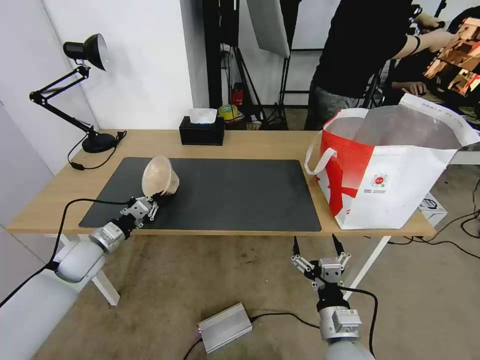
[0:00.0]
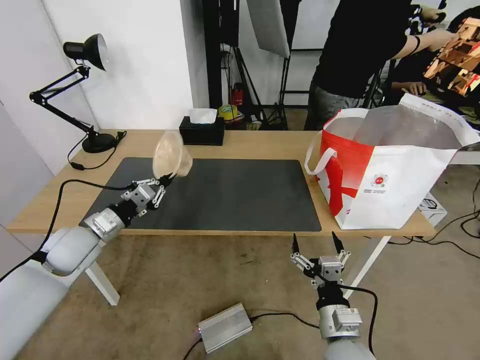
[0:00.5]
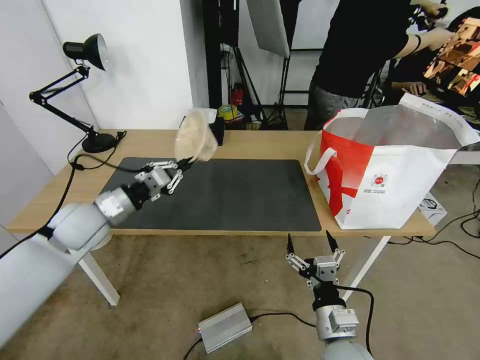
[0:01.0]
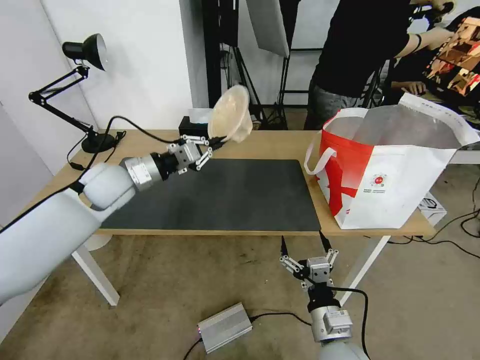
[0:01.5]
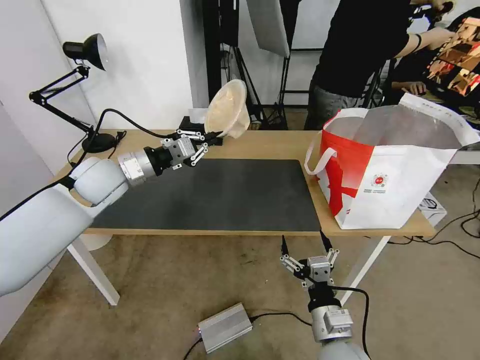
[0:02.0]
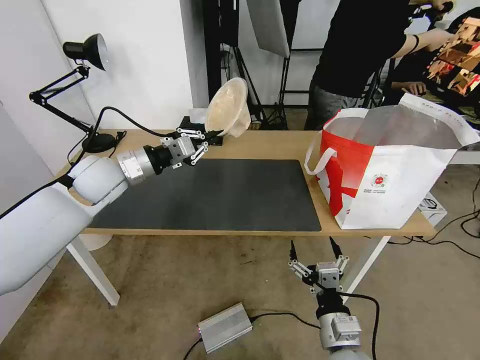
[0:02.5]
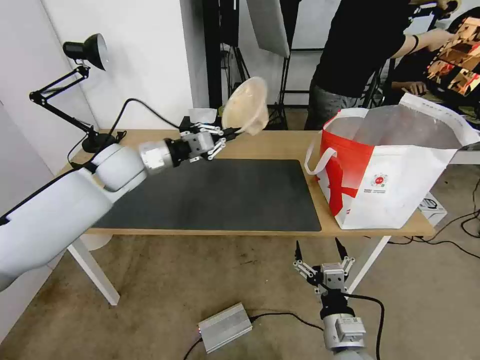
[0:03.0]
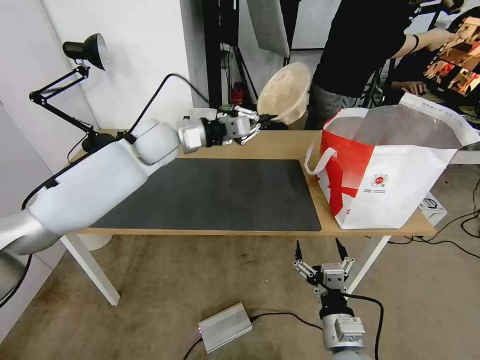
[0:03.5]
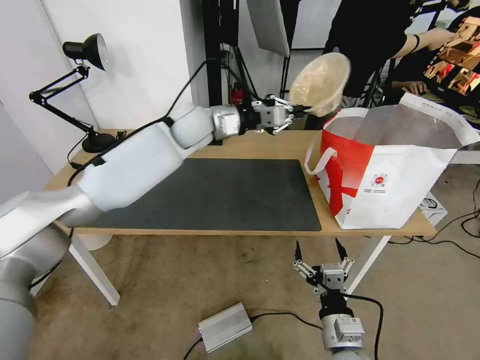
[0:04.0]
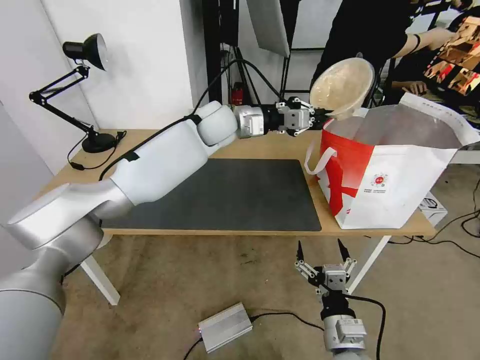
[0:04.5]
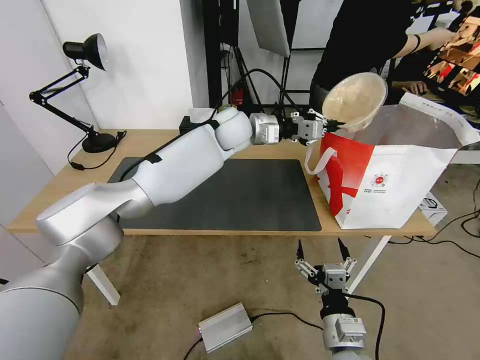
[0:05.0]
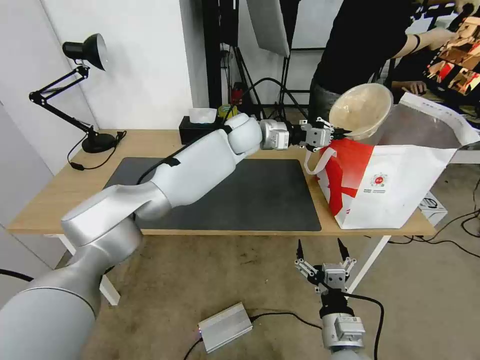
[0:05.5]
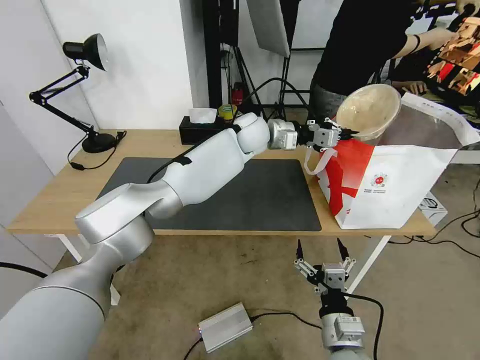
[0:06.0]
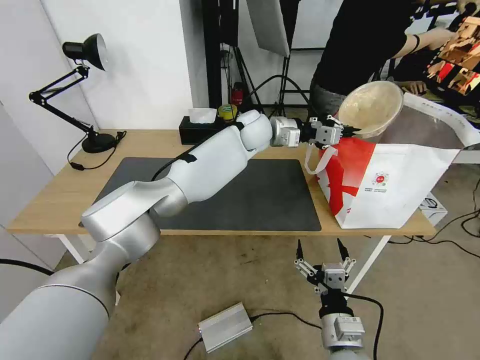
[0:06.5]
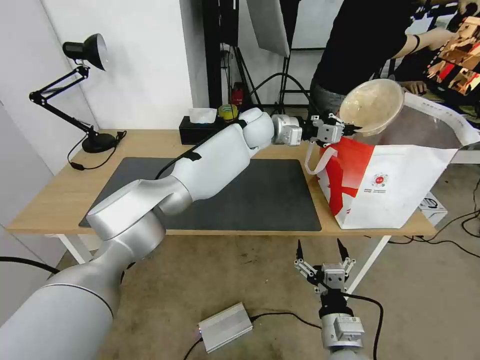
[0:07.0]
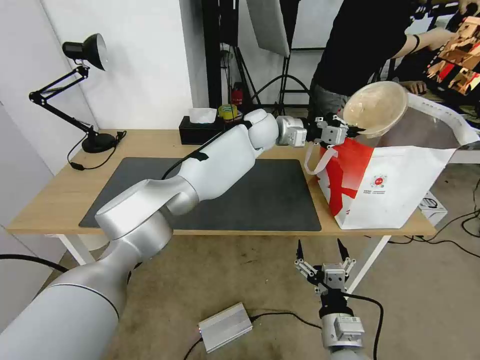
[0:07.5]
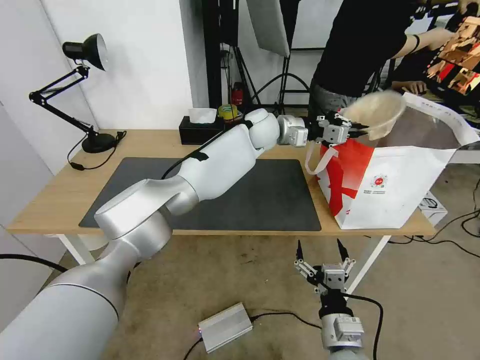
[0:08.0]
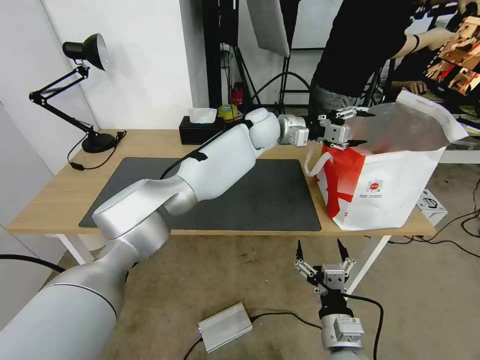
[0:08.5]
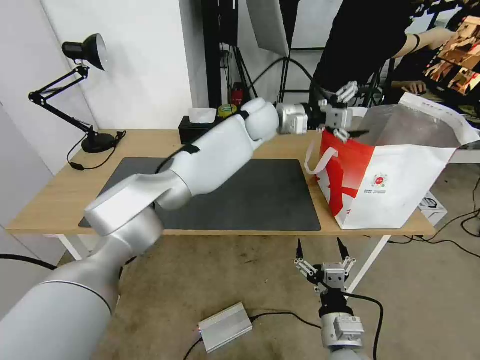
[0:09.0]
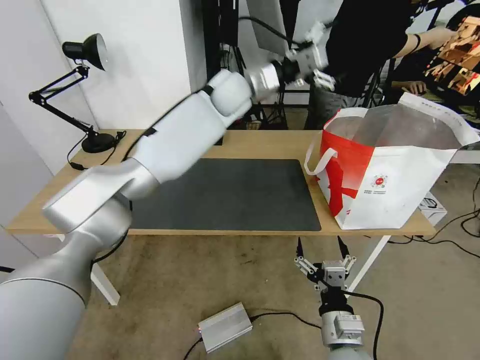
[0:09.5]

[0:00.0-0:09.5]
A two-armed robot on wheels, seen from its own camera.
Task of the whole recording: Pick up the trash from the table and place it into the takeout bag.
0:00.0 to 0:02.0: The left gripper goes approximately 20 cm upward, to the right and forward.
0:02.0 to 0:04.0: The left gripper is displaced to the right and forward by approximately 20 cm.
0:04.0 to 0:05.5: The left gripper travels to the right by about 10 cm.
0:05.5 to 0:07.5: There are only small adjustments of the grippers.
0:07.5 to 0:09.5: The left gripper goes about 10 cm upward and to the left, and opens its fingers.

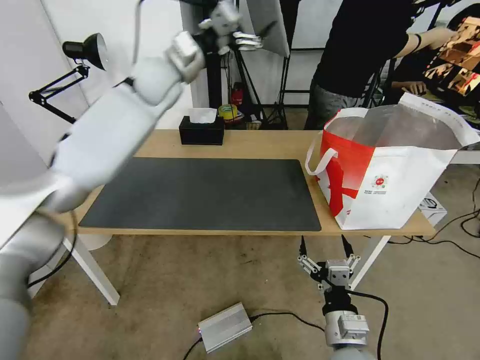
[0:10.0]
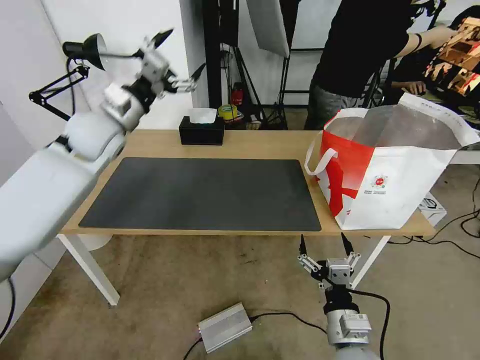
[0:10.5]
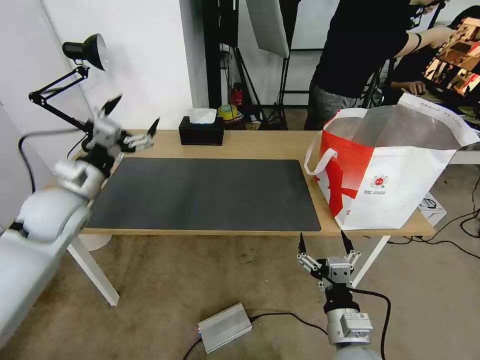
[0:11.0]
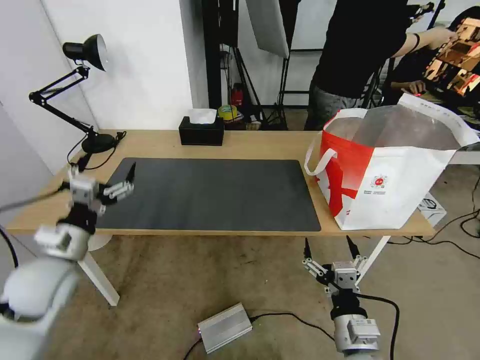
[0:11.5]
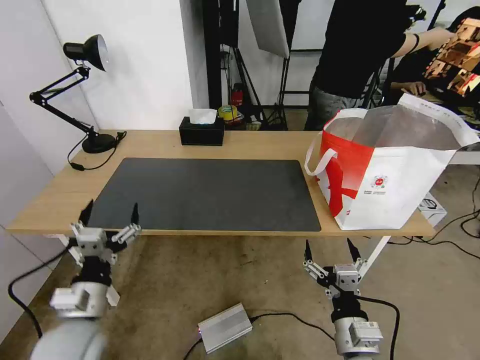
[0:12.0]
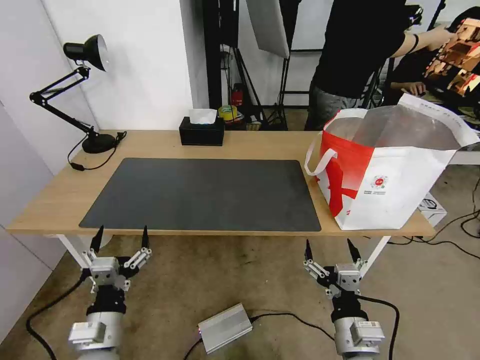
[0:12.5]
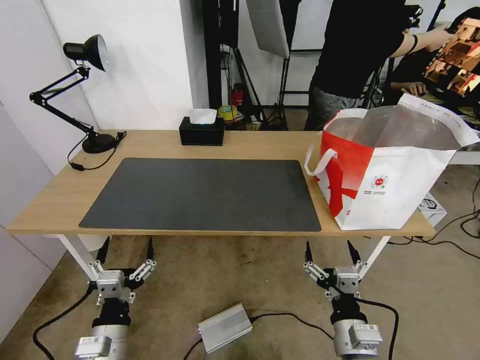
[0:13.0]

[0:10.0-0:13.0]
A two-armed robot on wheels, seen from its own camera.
Task of the whole recording: Pick up the trash from the table and place it into the takeout bag.
0:10.0 to 0:11.5: The left gripper shifts about 40 cm backward, downward and to the left.
0:11.5 to 0:13.0: The left gripper goes approximately 20 cm backward, downward and to the right.

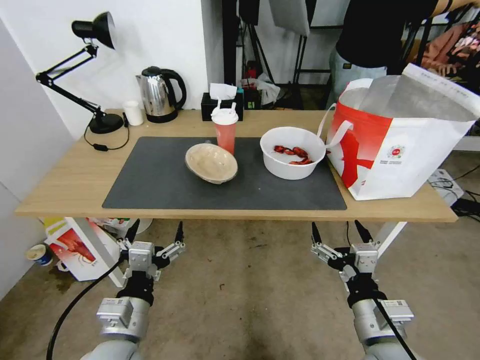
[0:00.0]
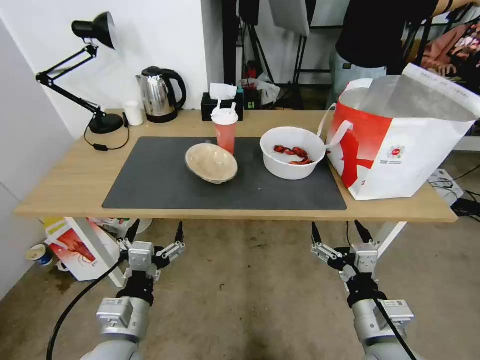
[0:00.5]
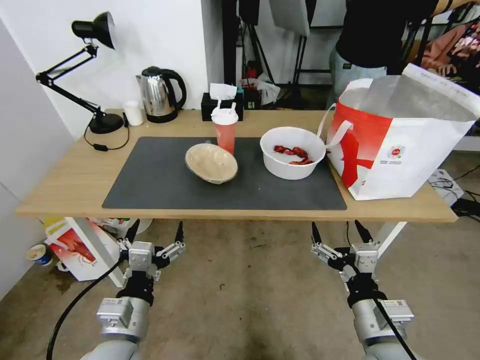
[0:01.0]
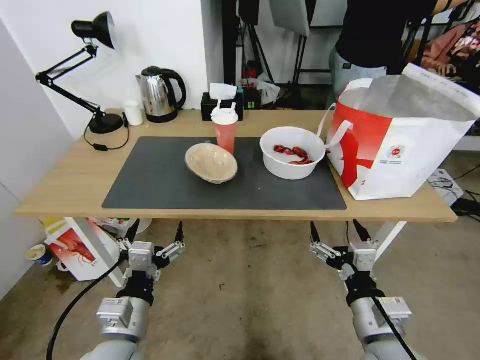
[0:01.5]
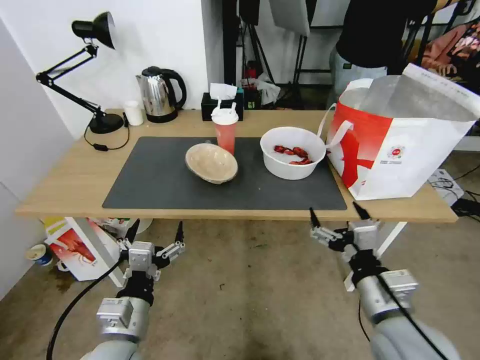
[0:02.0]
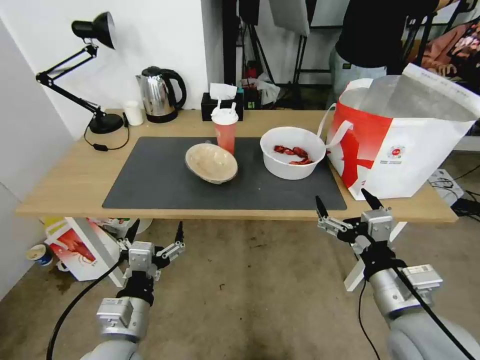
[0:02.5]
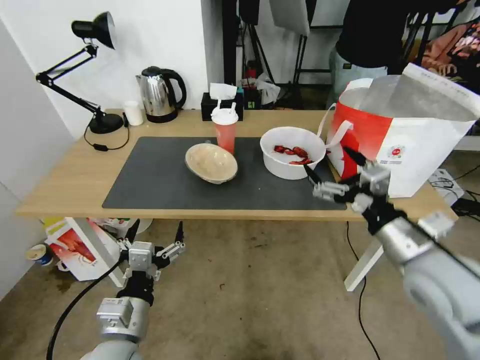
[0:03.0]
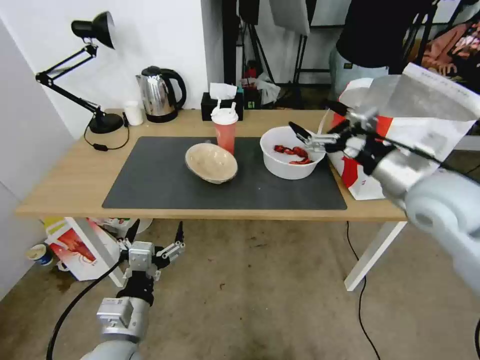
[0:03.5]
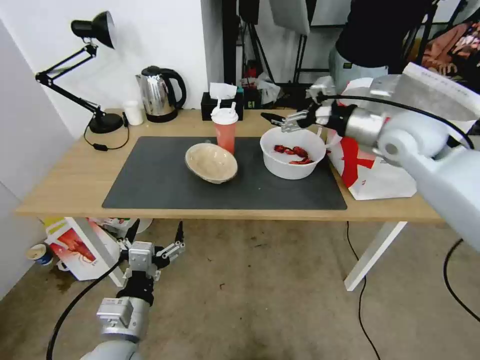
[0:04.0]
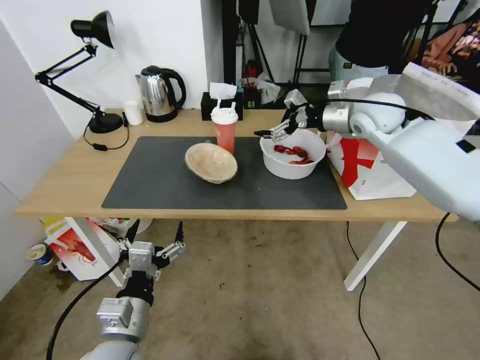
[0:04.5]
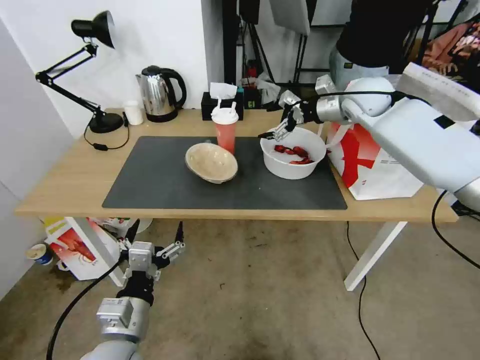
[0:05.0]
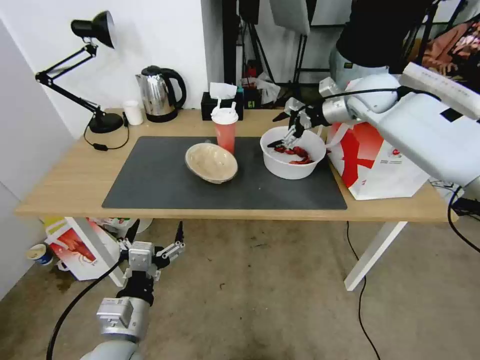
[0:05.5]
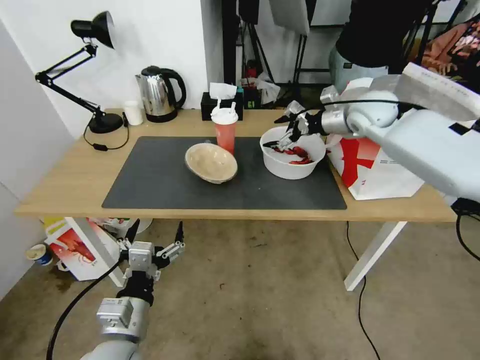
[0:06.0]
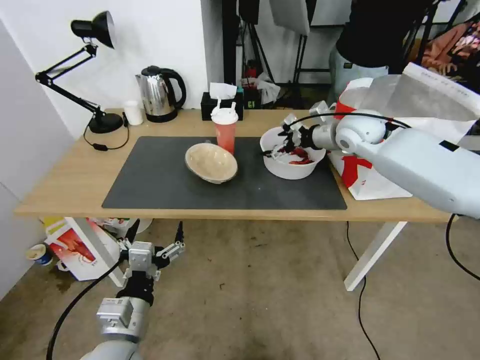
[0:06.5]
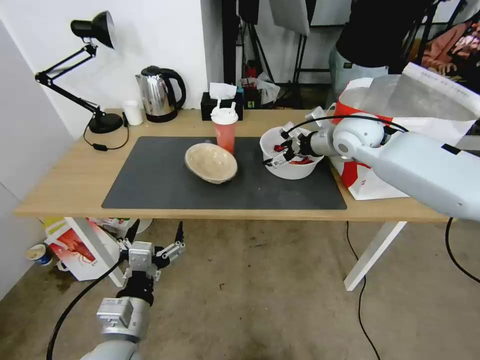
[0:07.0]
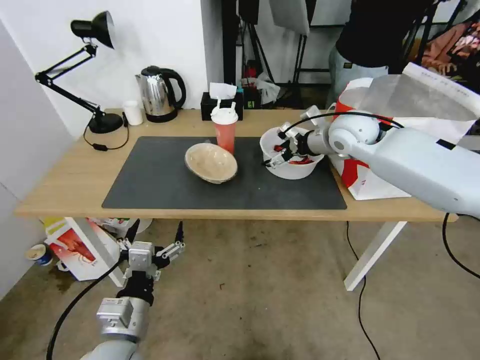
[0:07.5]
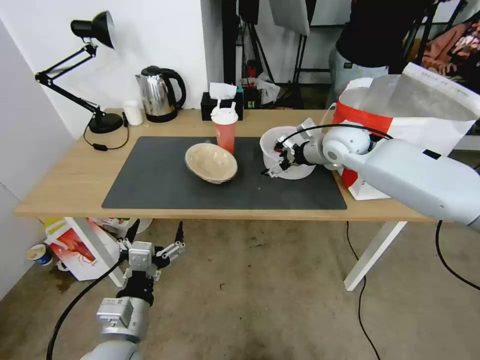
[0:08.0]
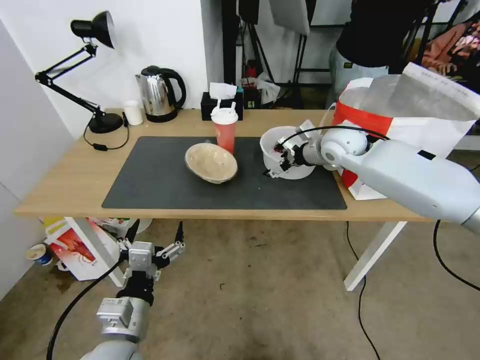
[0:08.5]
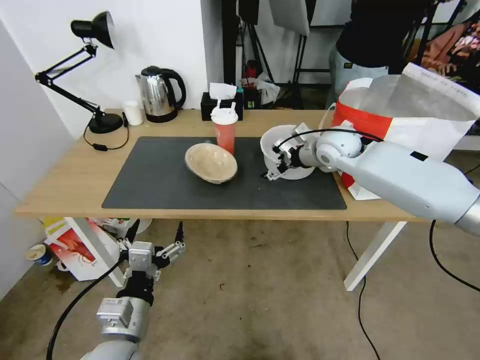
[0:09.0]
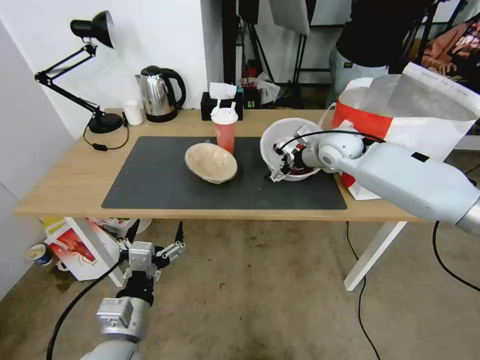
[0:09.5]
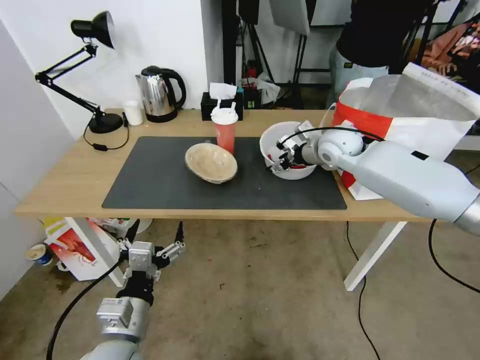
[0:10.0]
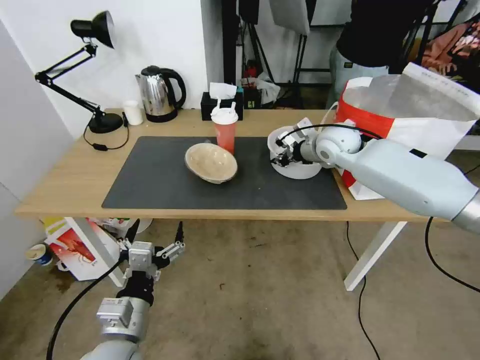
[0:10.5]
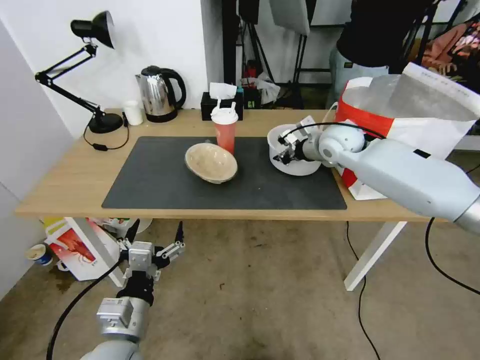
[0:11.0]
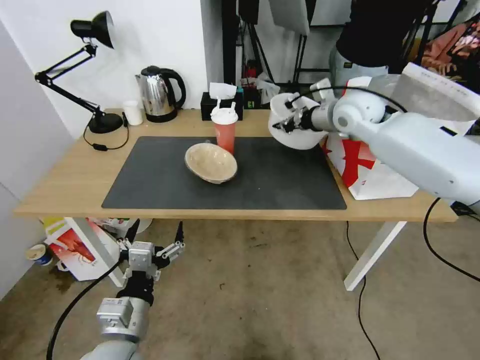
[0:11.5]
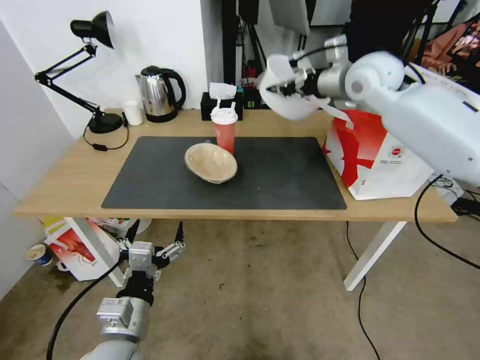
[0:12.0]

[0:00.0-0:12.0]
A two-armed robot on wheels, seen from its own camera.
Task of the whole recording: Pick up the trash from the table and place it into the takeout bag.
0:02.0 to 0:04.0: The right gripper is displaced forward and upward by roughly 35 cm.
0:04.0 to 0:06.0: The right gripper moves forward, some 10 cm.
0:06.0 to 0:08.0: The right gripper moves to the left and downward, approximately 10 cm.
0:08.0 to 0:10.0: There are only small adjustments of the grippers.
0:10.0 to 0:12.0: The right gripper is displaced upward by about 15 cm, and closes.

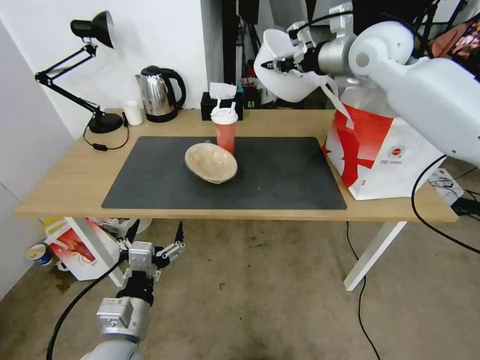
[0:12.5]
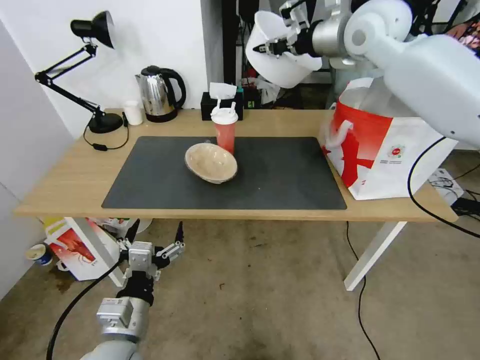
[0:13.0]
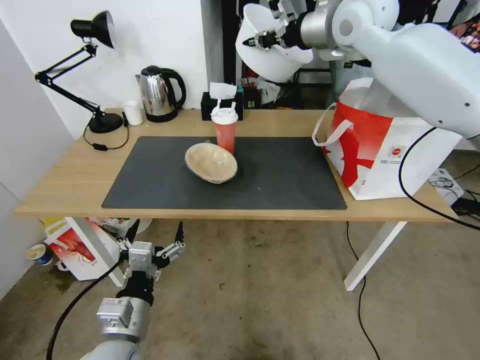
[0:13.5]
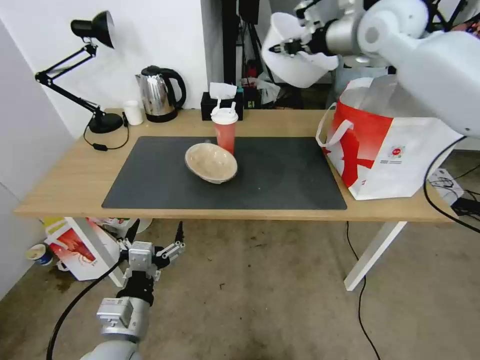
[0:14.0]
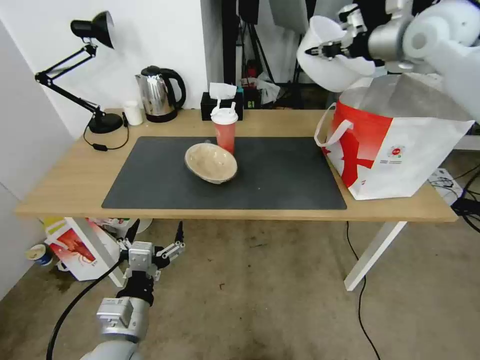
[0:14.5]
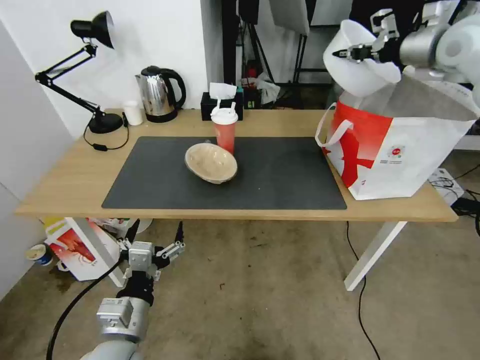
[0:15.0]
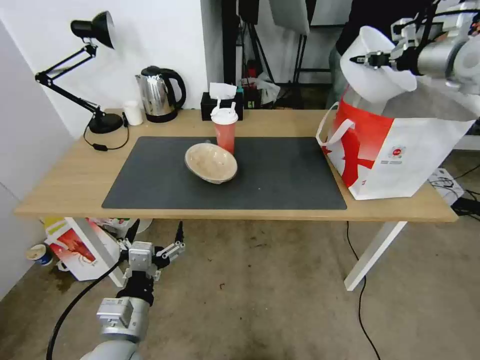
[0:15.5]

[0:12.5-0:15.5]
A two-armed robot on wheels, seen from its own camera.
Task of the whole recording: Pick up the trash from the table and place it into the takeout bag.
0:14.0 to 0:15.5: The right gripper is displaced to the right by about 20 cm.
